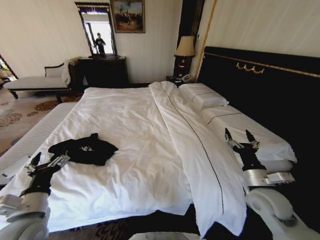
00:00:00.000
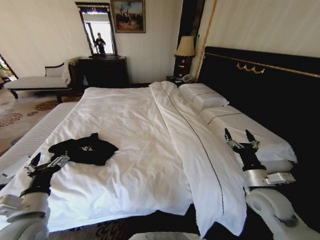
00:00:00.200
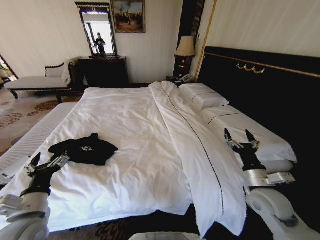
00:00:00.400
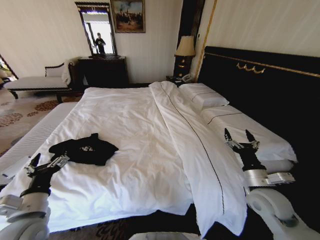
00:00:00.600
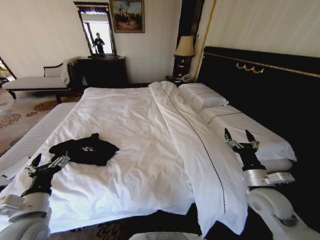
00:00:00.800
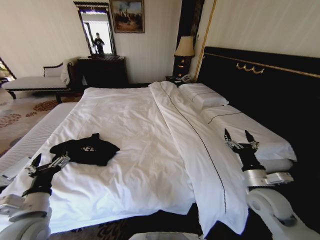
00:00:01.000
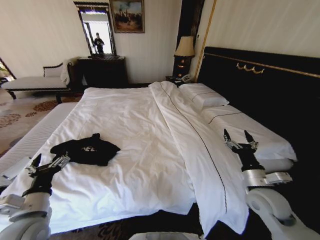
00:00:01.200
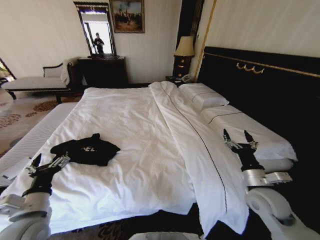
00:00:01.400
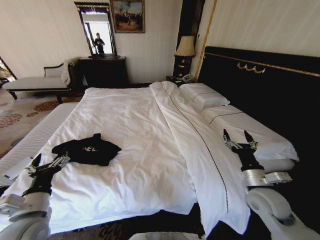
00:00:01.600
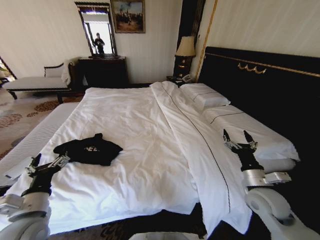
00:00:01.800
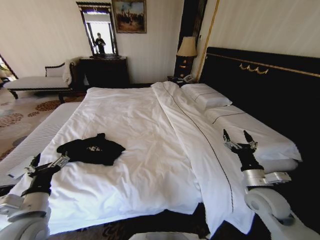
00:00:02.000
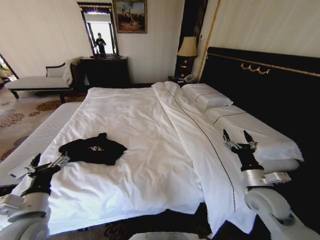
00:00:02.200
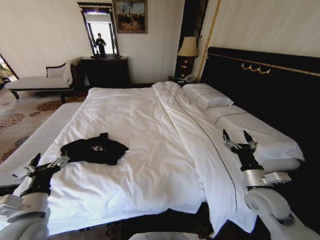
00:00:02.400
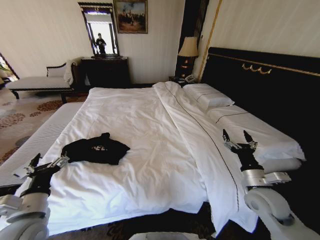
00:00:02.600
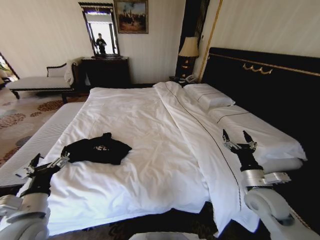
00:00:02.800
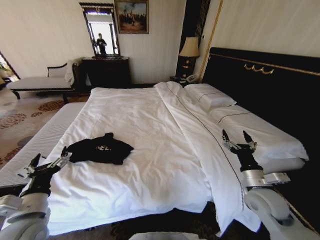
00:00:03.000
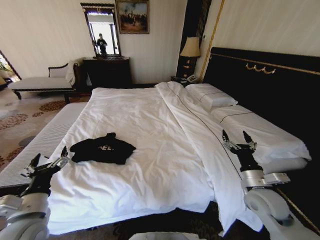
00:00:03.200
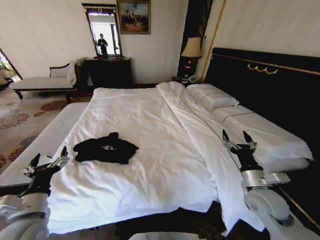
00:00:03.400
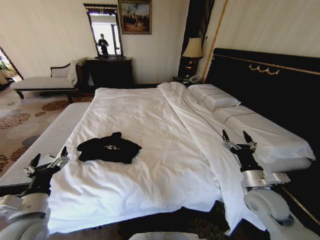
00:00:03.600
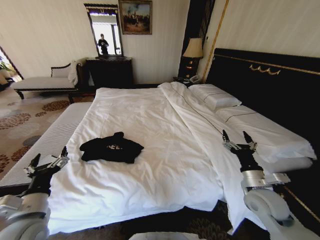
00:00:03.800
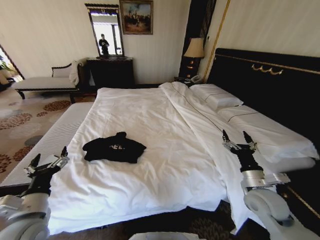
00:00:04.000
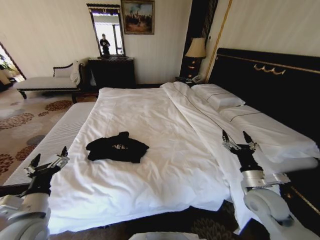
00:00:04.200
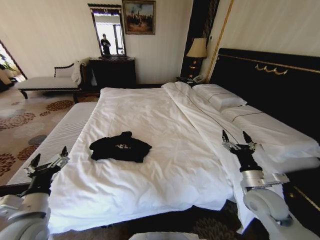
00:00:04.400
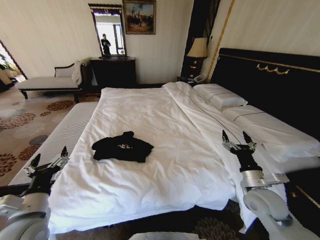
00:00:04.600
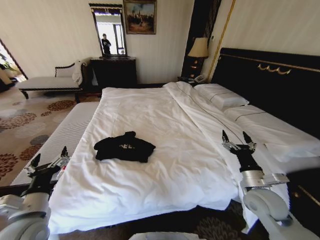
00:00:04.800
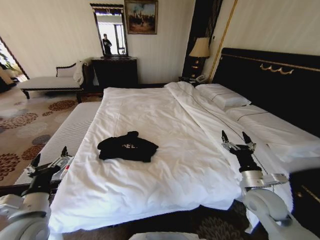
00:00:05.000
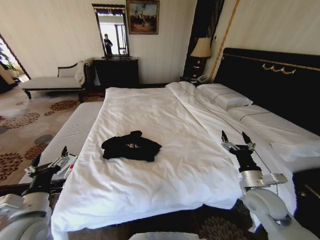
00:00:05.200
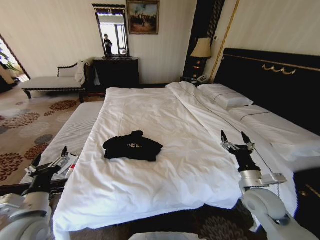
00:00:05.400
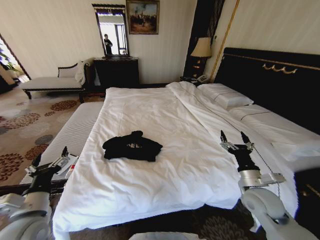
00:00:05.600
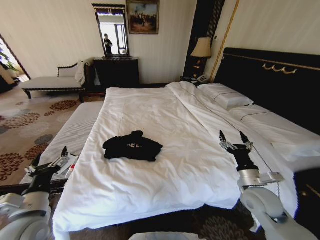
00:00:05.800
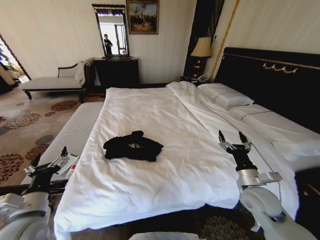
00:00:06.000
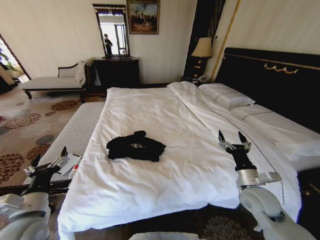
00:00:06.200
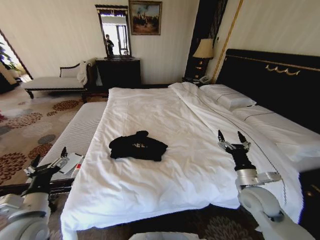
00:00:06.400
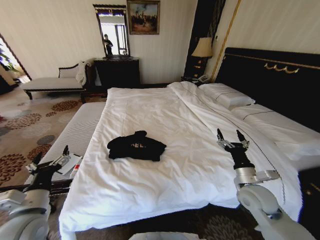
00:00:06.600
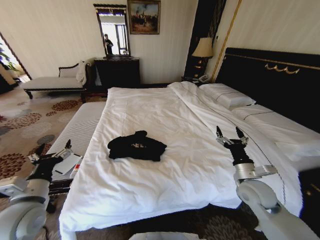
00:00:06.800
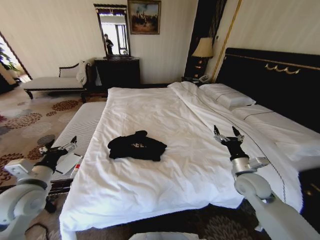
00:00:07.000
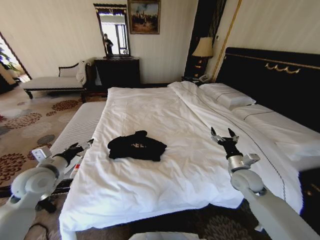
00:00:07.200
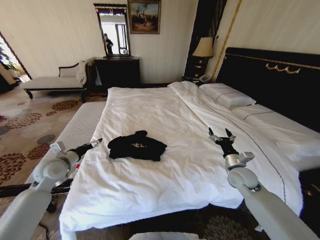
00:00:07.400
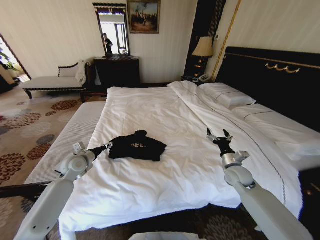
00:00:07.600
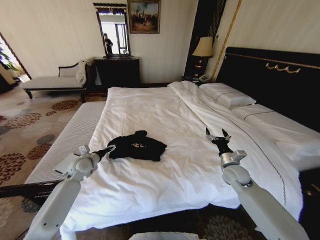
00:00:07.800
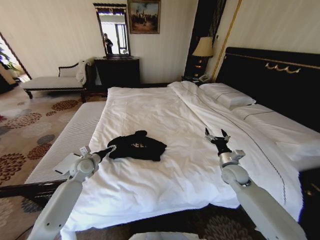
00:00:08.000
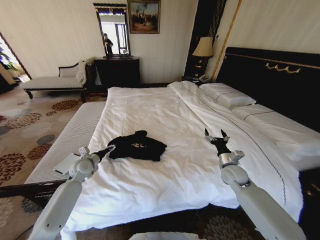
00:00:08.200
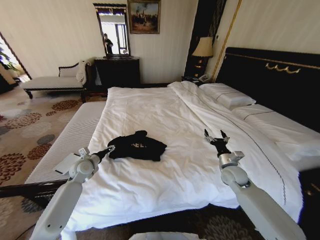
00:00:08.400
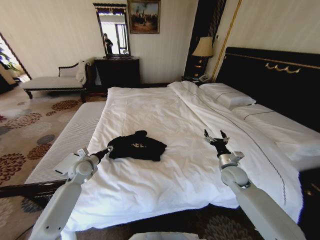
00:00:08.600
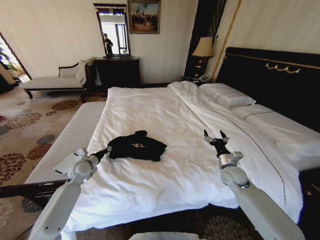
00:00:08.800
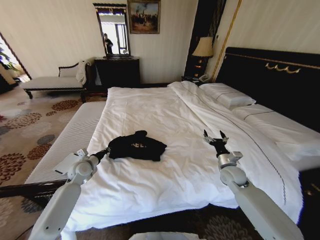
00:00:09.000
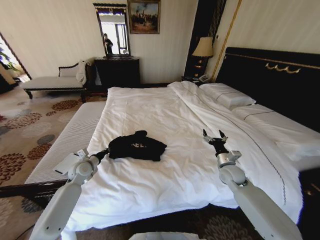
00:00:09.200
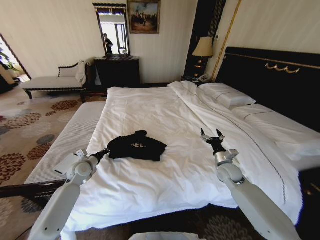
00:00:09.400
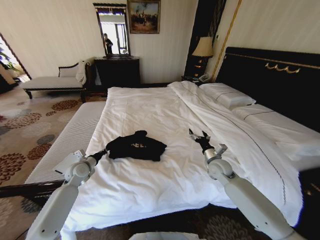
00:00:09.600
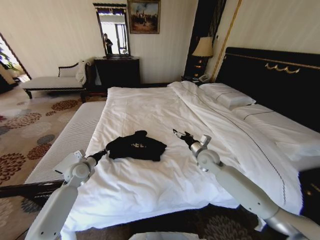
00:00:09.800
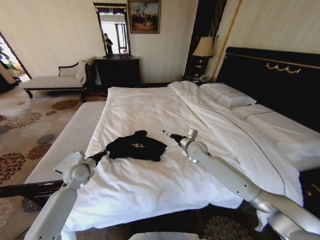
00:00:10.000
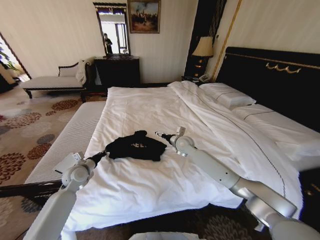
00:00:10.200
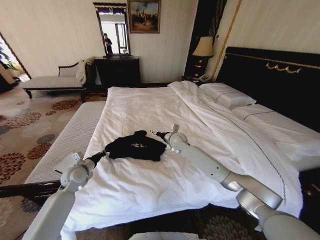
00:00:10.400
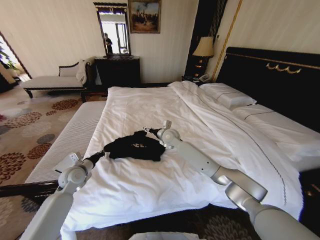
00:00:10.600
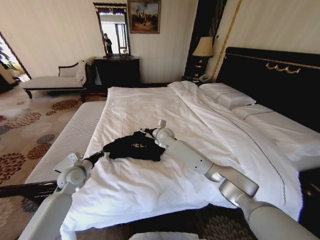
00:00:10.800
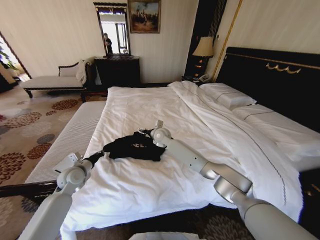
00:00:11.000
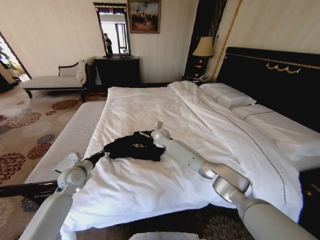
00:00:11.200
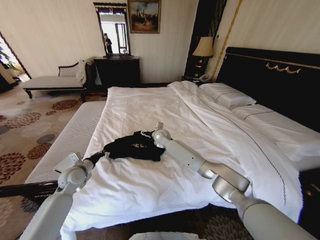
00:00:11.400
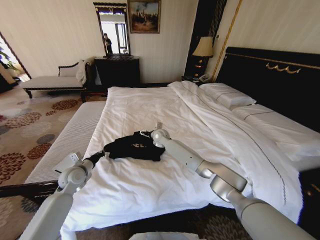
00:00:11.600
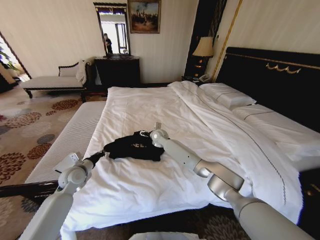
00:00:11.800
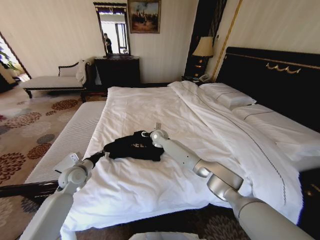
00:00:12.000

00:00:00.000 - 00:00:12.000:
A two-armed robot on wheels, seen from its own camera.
Task of the whole recording: Fold the clothes on the bed.
00:00:00.000 - 00:00:01.600: Both grippers stay about where they are.
00:00:06.000 - 00:00:07.600: The right gripper shifts approximately 10 cm forward; the left gripper shifts approximately 25 cm forward.
00:00:07.600 - 00:00:09.000: The left gripper moves downward, some 5 cm, and closes up.
00:00:09.000 - 00:00:10.400: The right gripper heads to the left and forward, covering approximately 30 cm.
00:00:10.400 - 00:00:12.000: The right gripper goes some 10 cm to the left and forward.

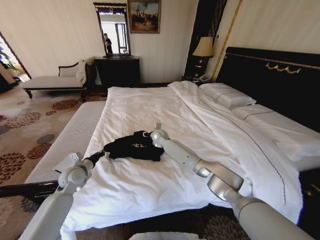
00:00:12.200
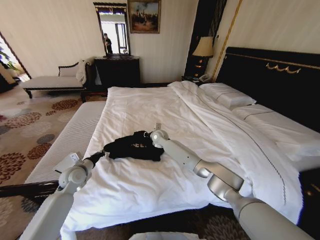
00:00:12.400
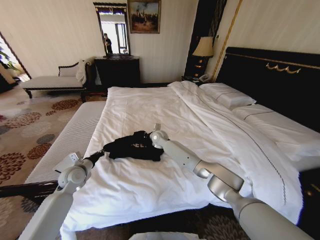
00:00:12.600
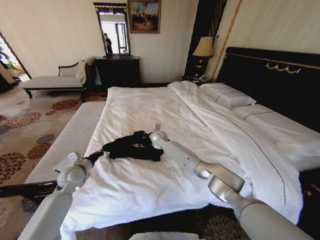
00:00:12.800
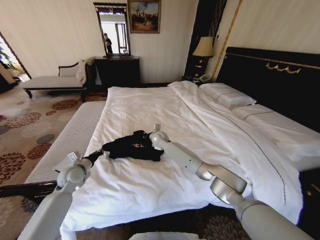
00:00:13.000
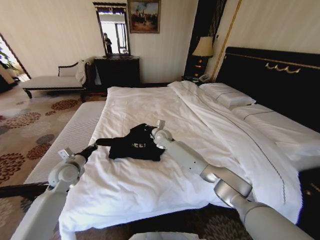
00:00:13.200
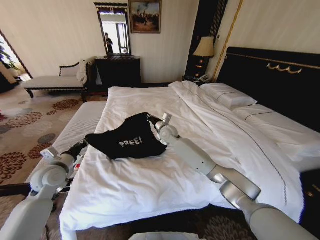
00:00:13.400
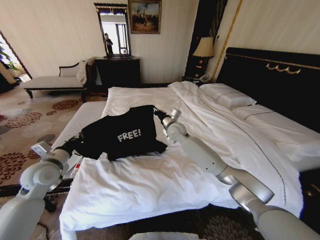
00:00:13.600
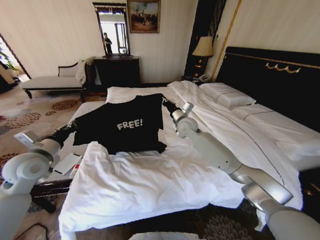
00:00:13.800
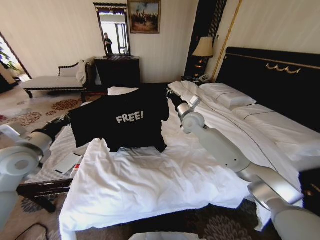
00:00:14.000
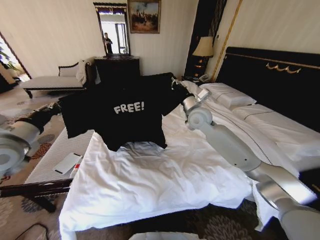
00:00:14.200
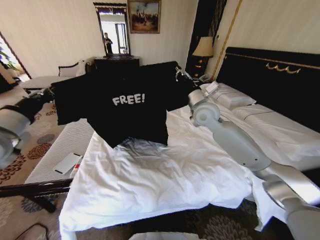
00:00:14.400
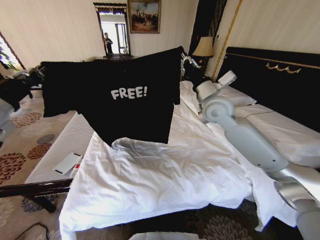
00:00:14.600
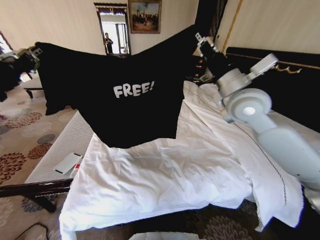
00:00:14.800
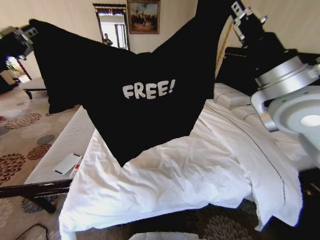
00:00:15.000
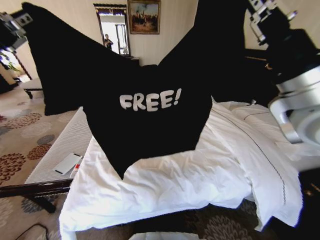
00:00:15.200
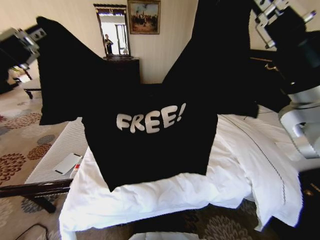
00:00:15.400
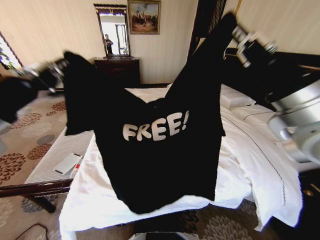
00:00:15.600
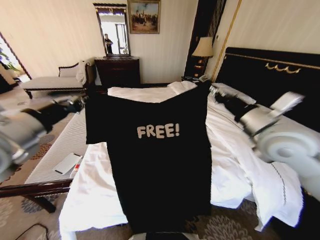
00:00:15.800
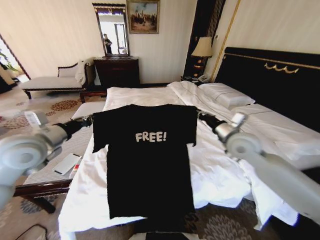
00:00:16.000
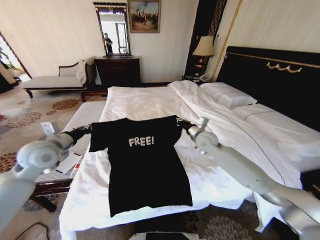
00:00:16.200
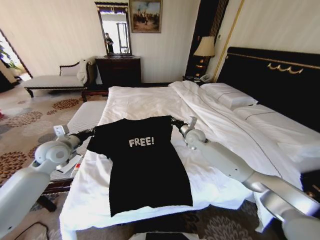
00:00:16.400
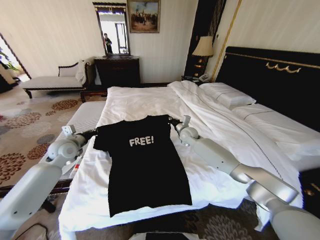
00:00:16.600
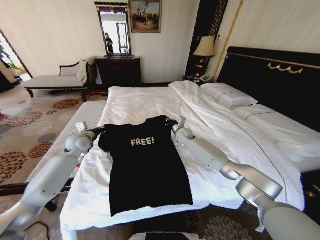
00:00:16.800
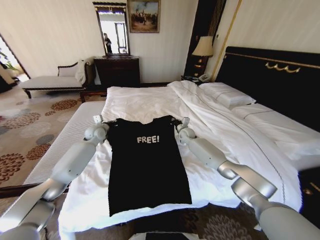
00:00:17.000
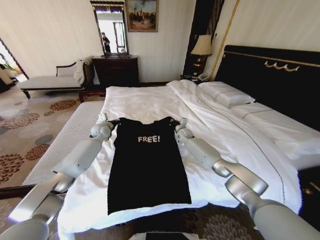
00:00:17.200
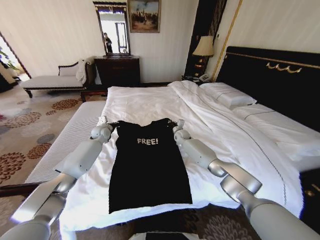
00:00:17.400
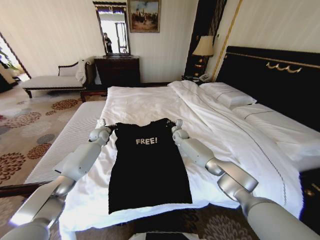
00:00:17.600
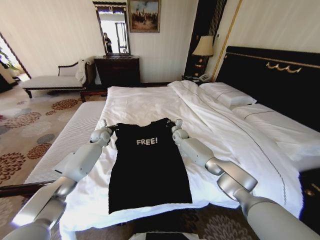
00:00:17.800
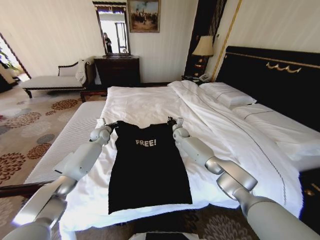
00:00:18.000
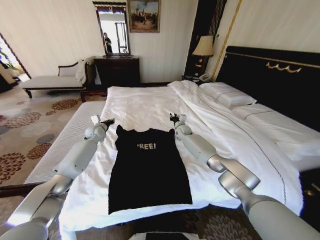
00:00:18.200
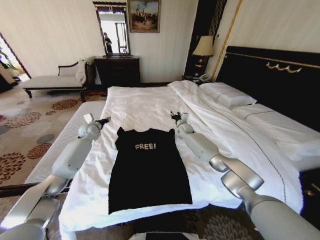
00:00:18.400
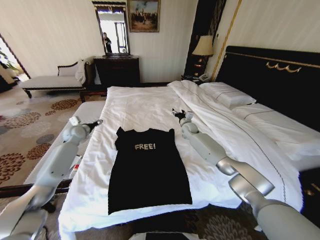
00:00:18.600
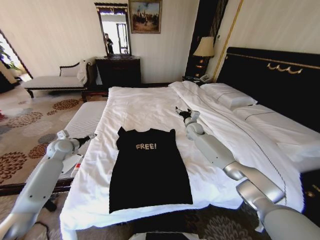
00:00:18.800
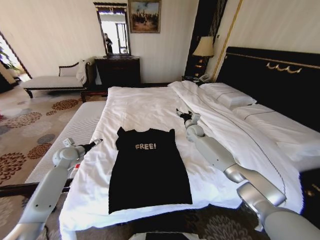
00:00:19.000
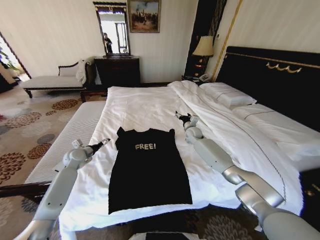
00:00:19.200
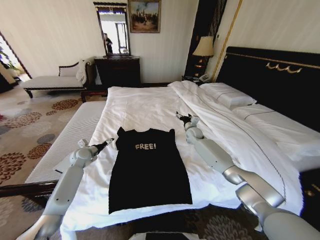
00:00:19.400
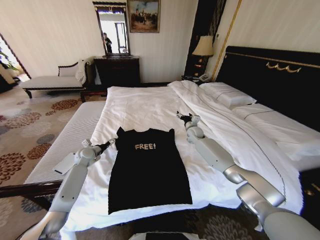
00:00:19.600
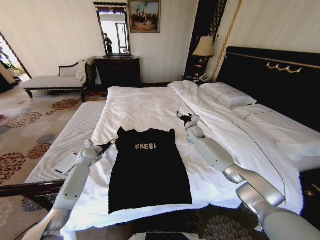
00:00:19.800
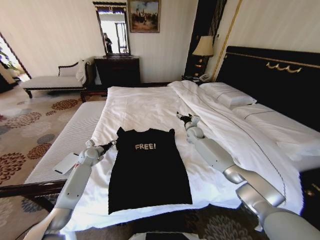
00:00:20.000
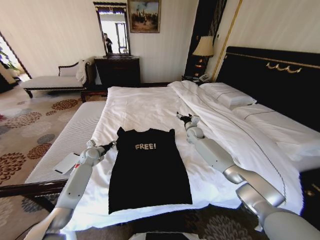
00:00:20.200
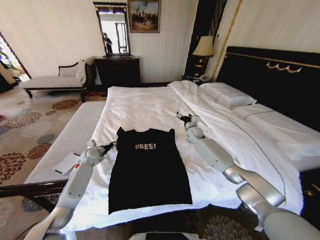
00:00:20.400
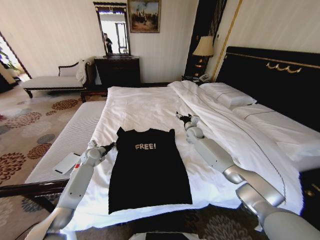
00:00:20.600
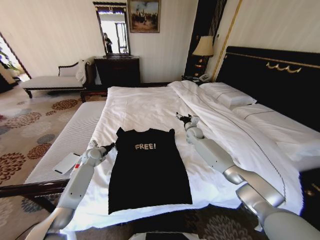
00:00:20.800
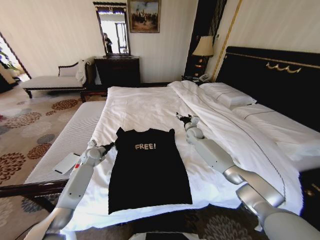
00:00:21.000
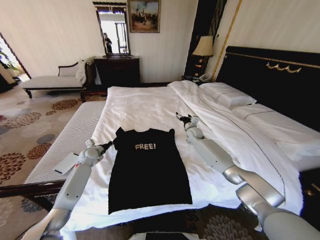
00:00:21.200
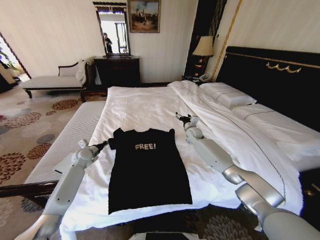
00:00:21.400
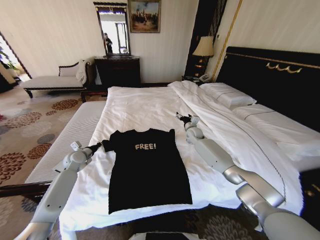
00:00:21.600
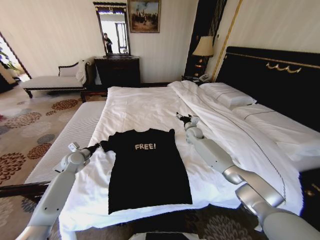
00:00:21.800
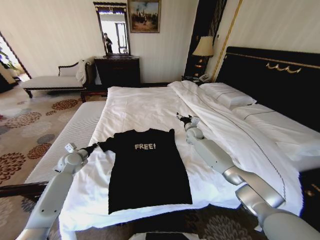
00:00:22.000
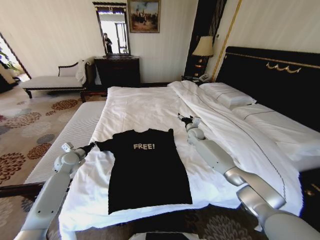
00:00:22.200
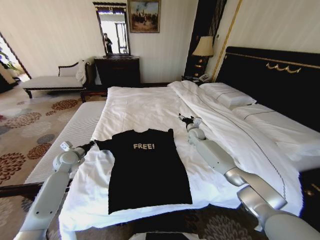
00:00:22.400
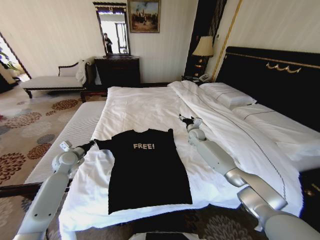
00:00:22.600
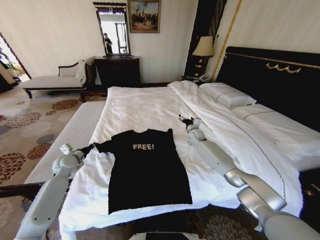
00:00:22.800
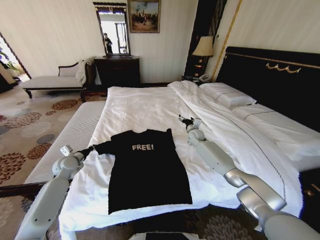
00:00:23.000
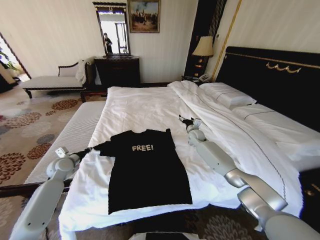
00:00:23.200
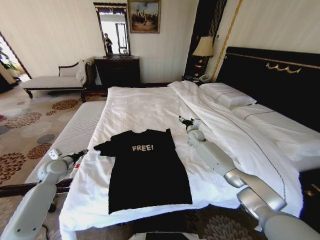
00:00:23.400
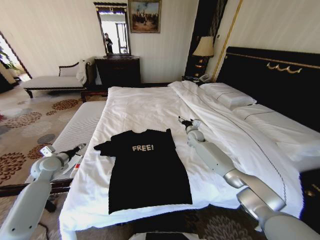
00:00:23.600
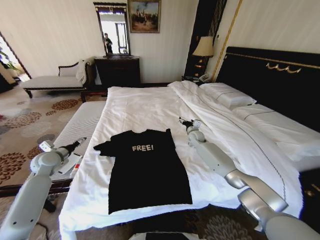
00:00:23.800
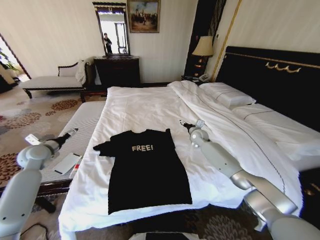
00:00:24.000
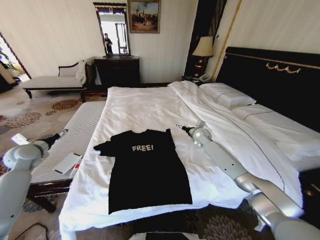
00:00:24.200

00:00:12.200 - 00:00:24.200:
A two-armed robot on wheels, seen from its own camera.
Task of the whole recording: Fold the clothes on the bed.
00:00:12.200 - 00:00:13.800: The right gripper moves upward, to the right and backward, some 20 cm, and closes. Meanwhile the left gripper goes about 15 cm upward.
00:00:13.800 - 00:00:15.200: The right gripper shifts roughly 35 cm backward, upward and to the right, while the left gripper travels upward and backward by about 25 cm.
00:00:15.200 - 00:00:16.600: The two grippers go some 40 cm downward and forward.
00:00:16.600 - 00:00:18.200: The right gripper goes some 10 cm forward. The left gripper moves forward, about 15 cm.
00:00:18.200 - 00:00:19.800: The right gripper goes approximately 5 cm to the right, and opens up, while the left gripper heads downward and backward, covering some 15 cm, and opens its fingers.
00:00:19.800 - 00:00:21.200: The left gripper closes.
00:00:21.200 - 00:00:22.600: The left gripper goes some 10 cm backward, to the left and upward.
00:00:22.600 - 00:00:24.200: The left gripper goes approximately 15 cm to the left and upward, and opens.
